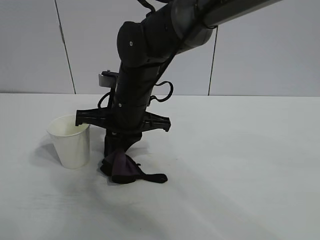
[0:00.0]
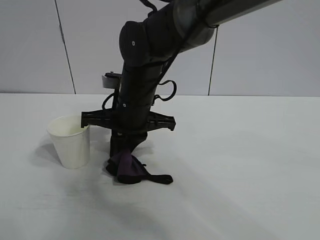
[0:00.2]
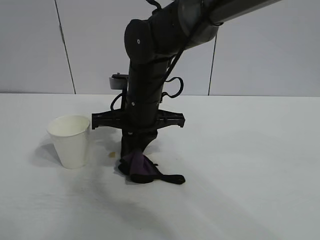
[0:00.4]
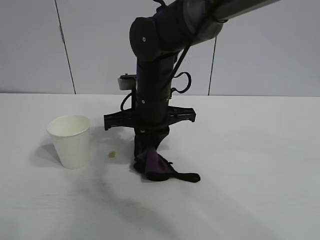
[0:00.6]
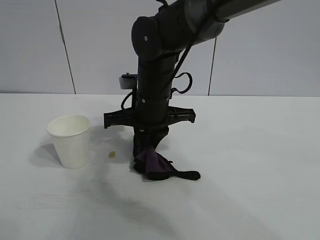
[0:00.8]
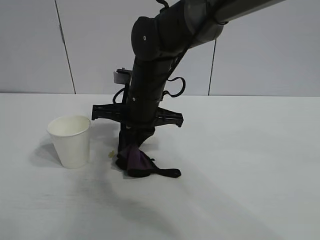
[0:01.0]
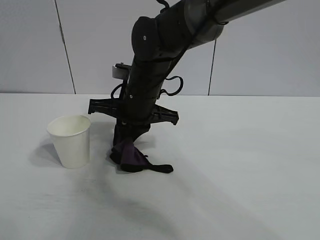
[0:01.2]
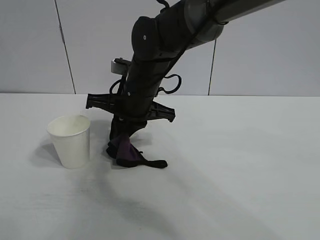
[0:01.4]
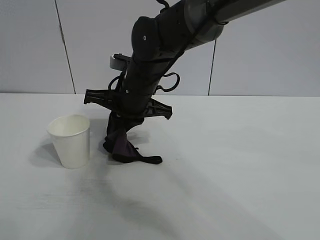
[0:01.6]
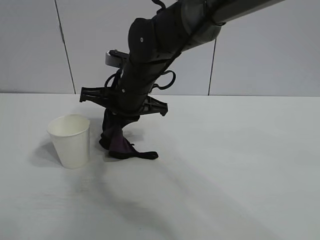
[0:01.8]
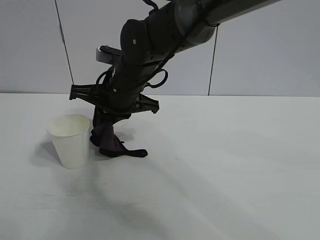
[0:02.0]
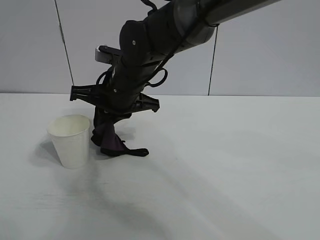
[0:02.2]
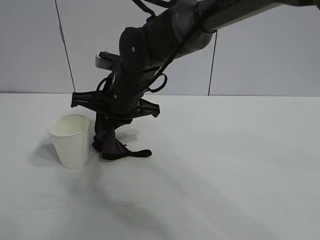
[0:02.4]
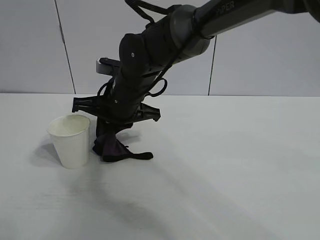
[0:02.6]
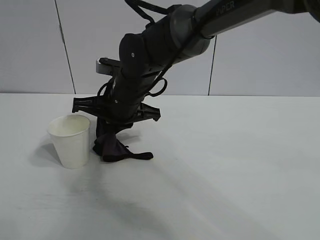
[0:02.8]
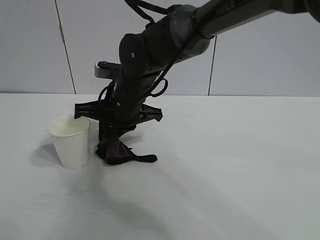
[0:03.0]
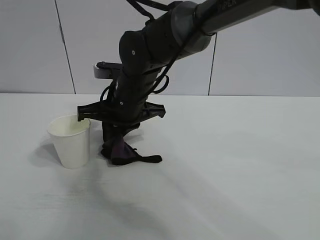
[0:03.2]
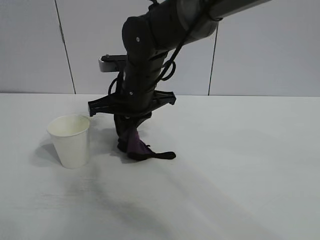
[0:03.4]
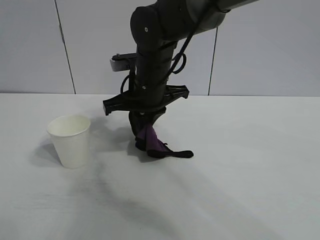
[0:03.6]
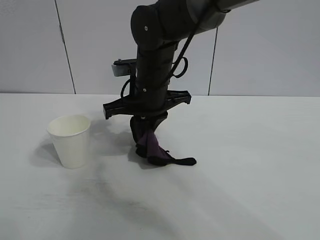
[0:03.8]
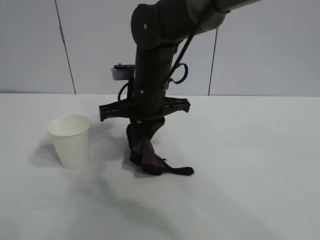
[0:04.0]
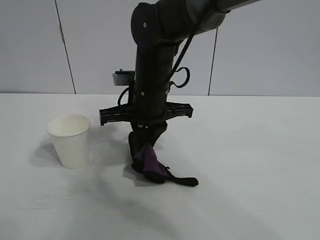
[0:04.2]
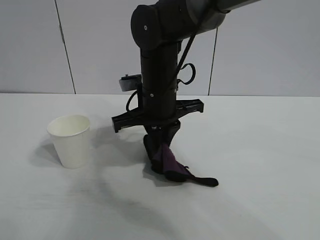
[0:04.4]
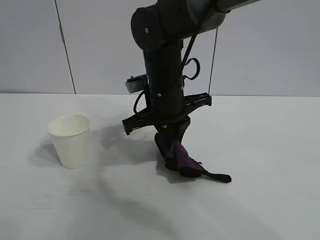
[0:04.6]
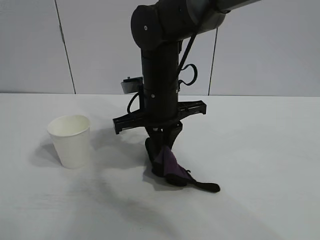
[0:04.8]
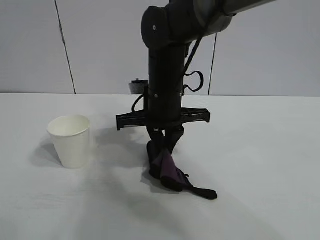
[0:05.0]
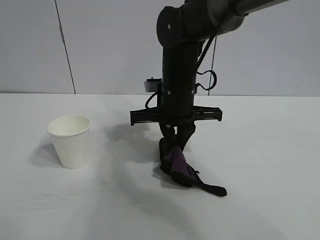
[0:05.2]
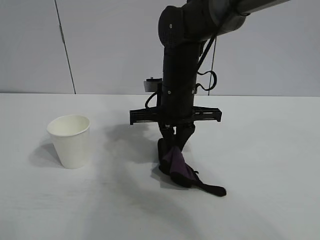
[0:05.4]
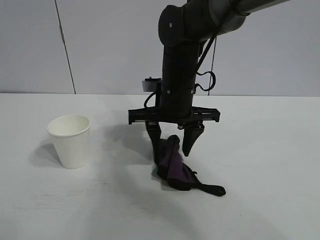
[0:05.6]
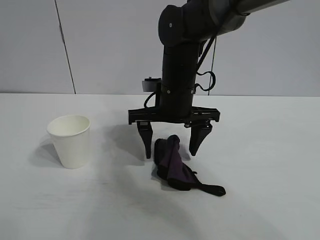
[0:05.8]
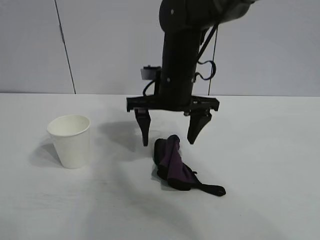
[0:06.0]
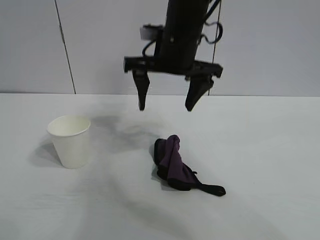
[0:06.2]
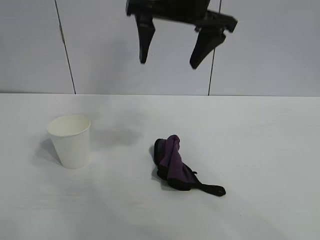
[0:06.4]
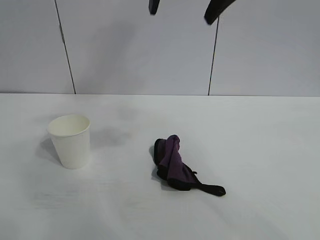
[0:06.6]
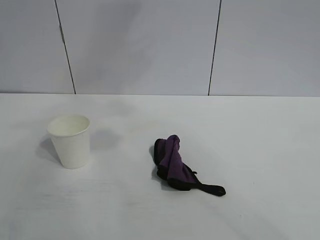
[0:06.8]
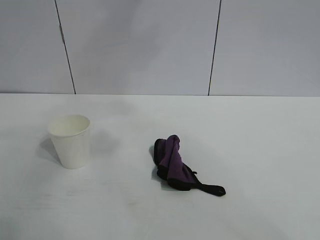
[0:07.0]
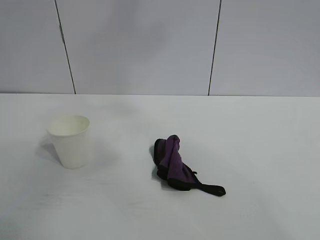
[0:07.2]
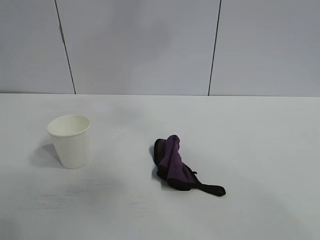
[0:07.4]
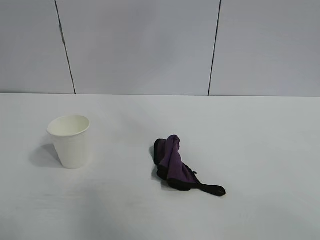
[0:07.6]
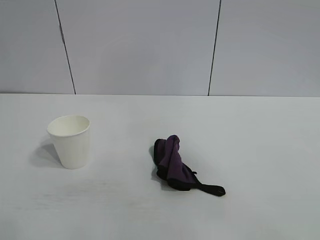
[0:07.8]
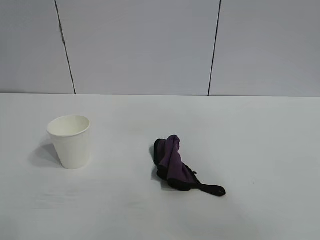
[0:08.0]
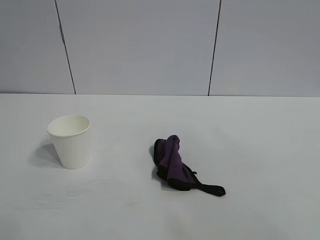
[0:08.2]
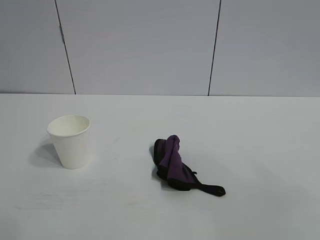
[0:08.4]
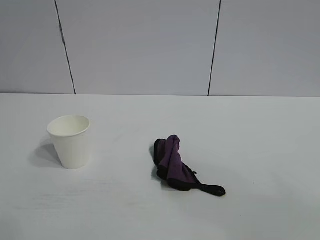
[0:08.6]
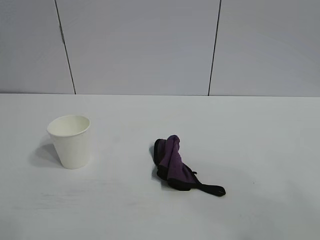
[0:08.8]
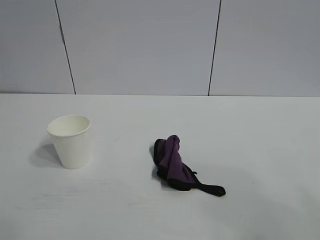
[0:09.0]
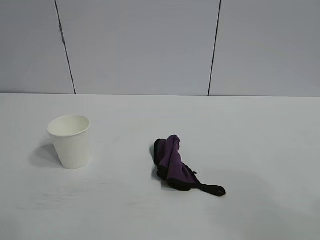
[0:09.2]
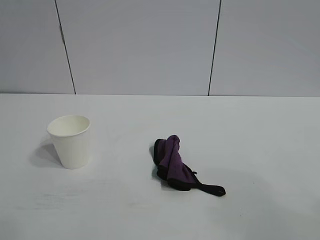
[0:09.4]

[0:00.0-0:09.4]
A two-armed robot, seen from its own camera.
Task of the whole recording: the left gripper pick up the fallen cup and place it upright, the right gripper grasp the black rag and wipe the stain on the table, the right gripper put the black rag back in its original position.
Step, 0:00.0 to 0:03.4: Wipe the stains off the table with the rag with right gripper.
Step, 0:03.6 to 0:05.4: Place the rag on the table with right gripper.
